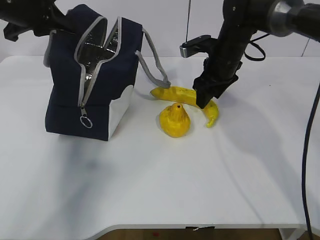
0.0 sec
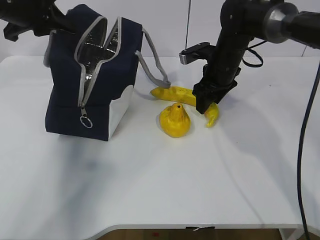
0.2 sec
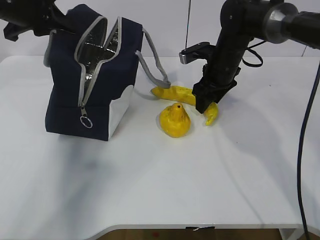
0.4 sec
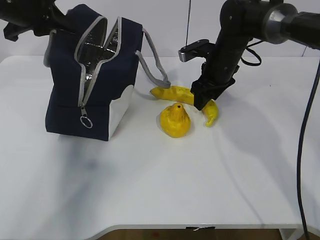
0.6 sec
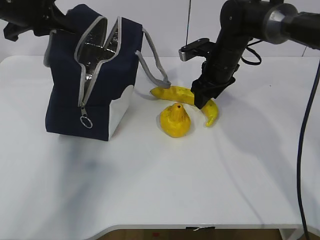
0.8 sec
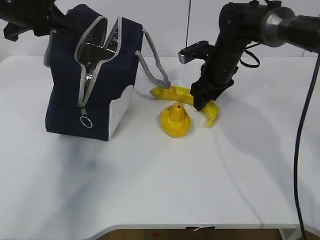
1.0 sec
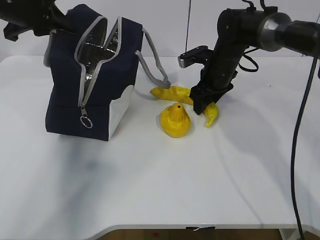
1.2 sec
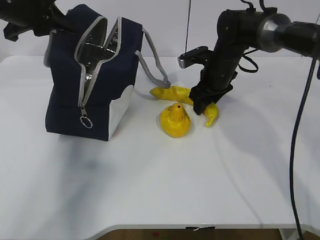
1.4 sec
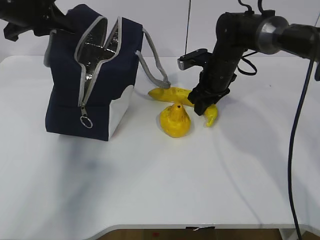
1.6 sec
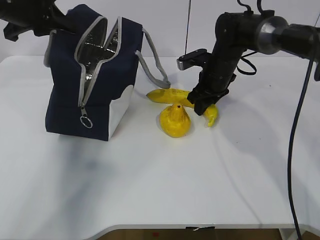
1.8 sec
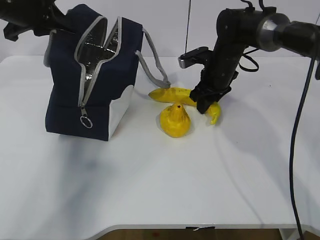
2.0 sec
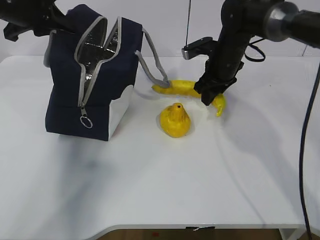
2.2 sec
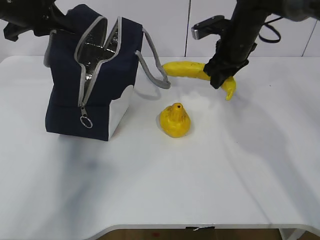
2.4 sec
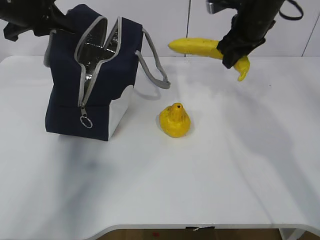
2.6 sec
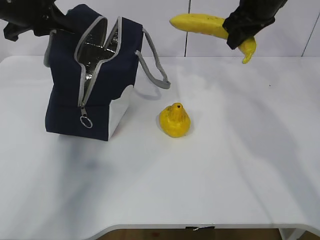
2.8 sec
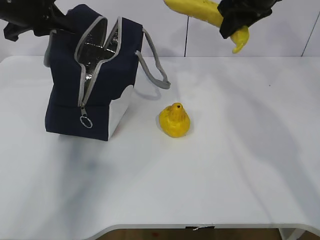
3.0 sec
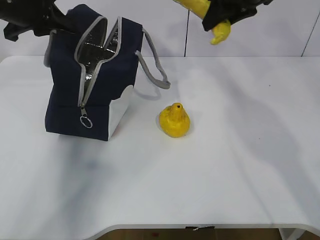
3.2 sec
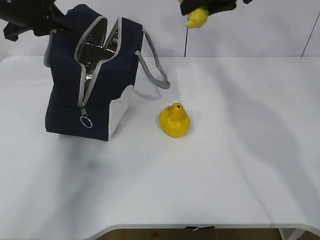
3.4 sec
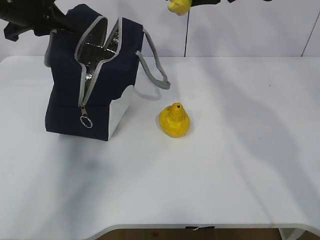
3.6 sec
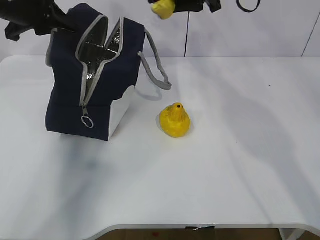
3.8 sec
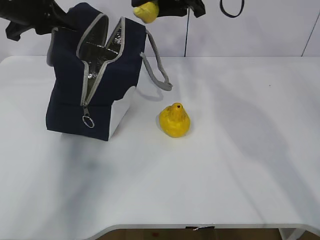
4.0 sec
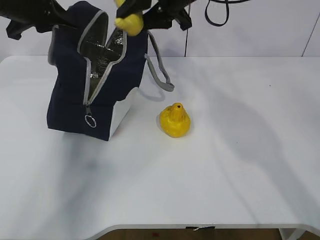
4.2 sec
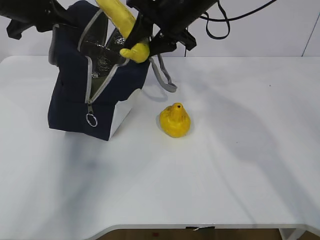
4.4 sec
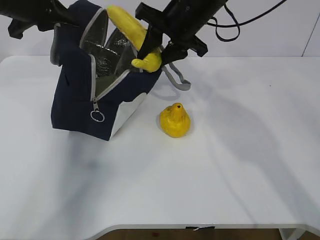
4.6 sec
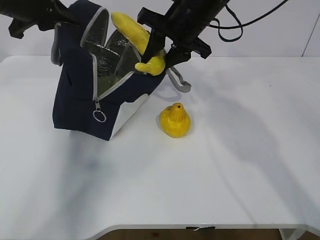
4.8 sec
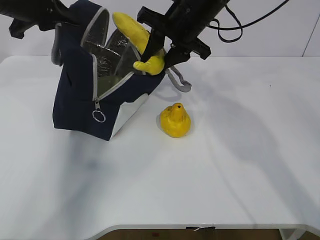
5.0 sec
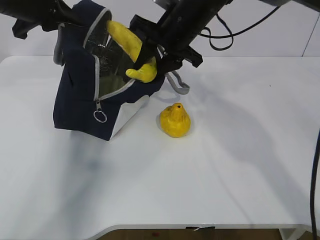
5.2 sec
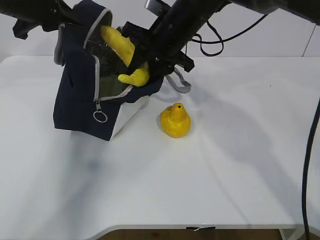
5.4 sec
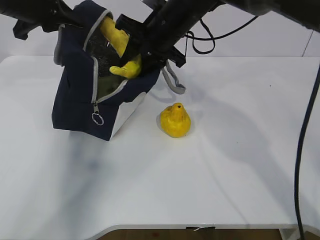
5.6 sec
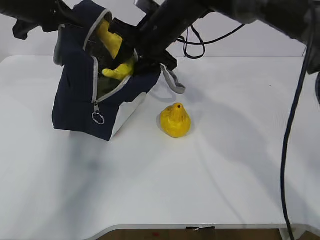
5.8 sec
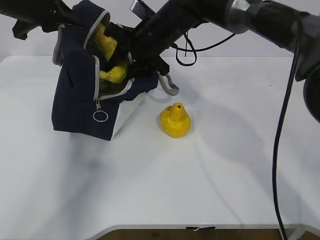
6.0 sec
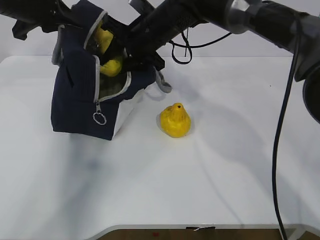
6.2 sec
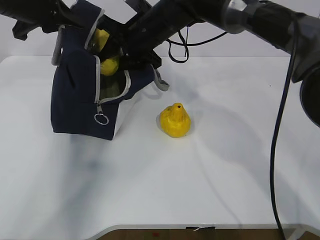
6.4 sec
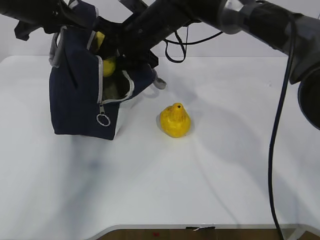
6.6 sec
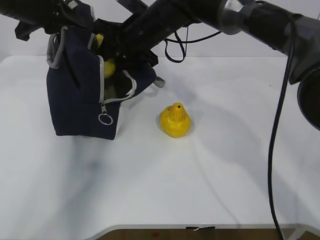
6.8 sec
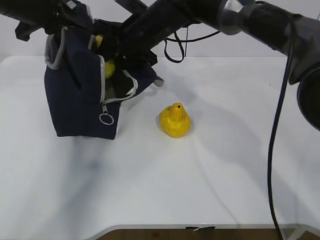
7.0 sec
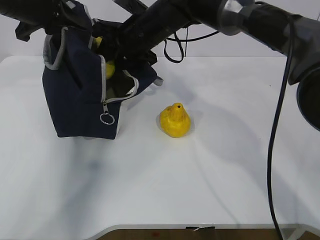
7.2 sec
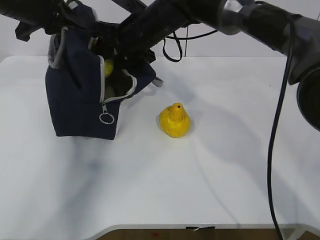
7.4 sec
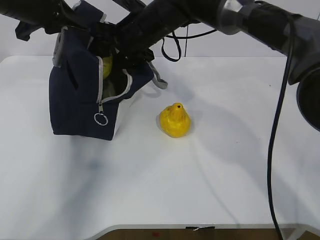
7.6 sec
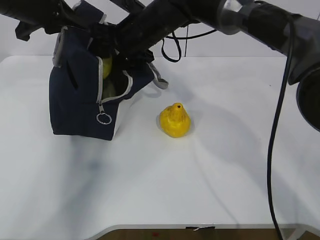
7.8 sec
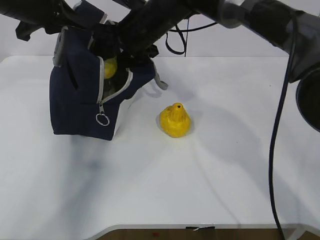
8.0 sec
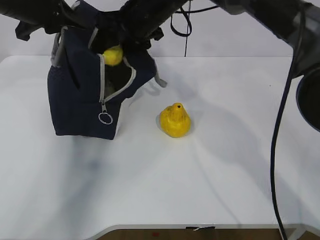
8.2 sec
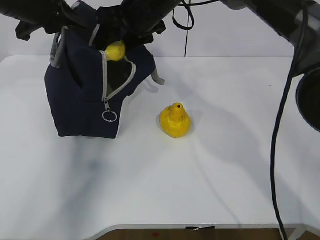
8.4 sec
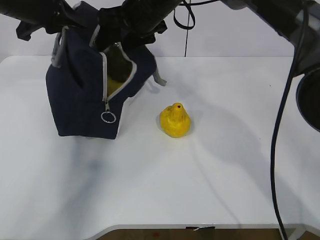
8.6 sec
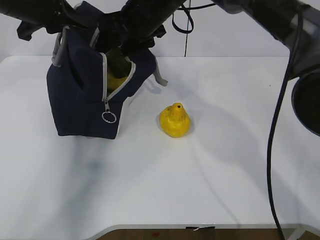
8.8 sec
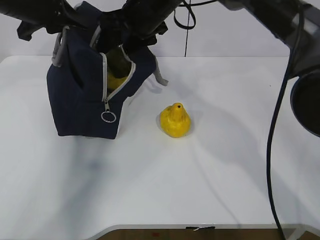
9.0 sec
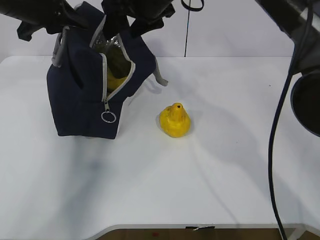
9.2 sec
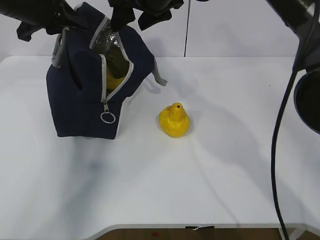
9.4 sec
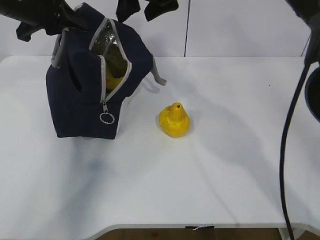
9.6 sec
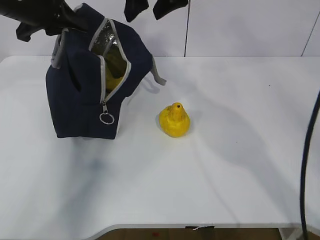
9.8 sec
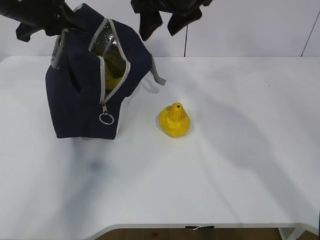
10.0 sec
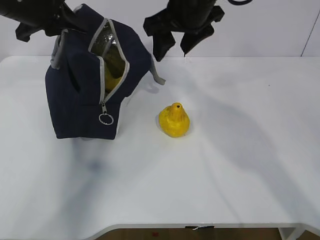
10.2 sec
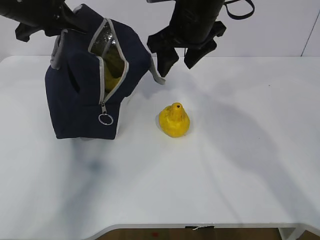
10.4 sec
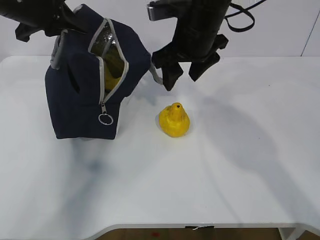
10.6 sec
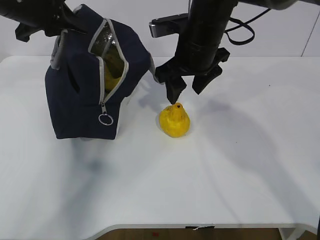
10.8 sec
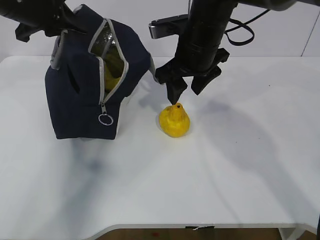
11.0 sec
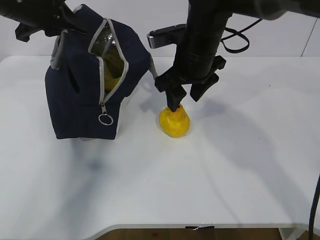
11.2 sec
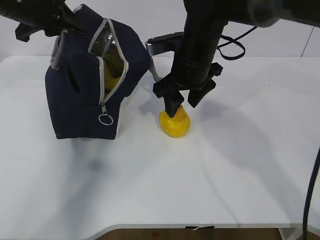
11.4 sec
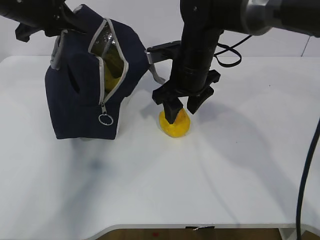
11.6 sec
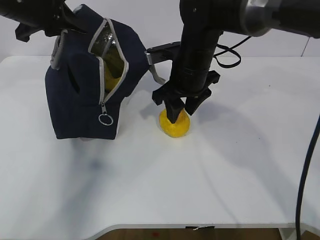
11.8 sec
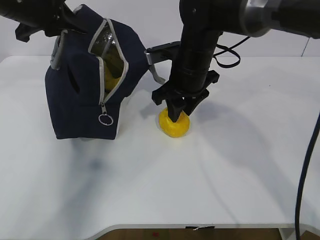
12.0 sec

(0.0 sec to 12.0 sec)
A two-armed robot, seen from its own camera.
Step, 0.0 sec - 3.4 sec: Place it into the bag with your right hand.
Step, 3.6 sec - 7.0 sec: Grab the pear with your right hand.
Step, 10.2 sec - 11.2 sec: Grab the lunch bag with your right hand.
0.0 sec - 1.6 sec: There are only small adjustments of the grippers.
1.6 sec - 3.0 sec: The right gripper is displaced upward by some 20 cm.
3.0 sec - 4.4 sec: The right gripper is displaced to the left by about 15 cm.
4.4 sec - 6.0 sec: The right gripper moves downward, some 5 cm.
7.6 sec - 9.0 sec: The grippers make only small movements.
9.0 sec - 10.4 sec: The right gripper is displaced to the right by approximately 5 cm.
10.4 sec - 12.0 sec: The right gripper travels downward by about 10 cm.

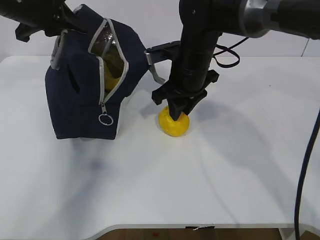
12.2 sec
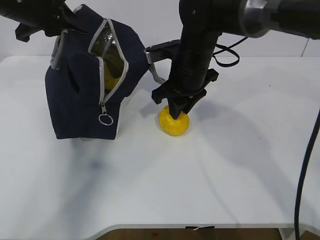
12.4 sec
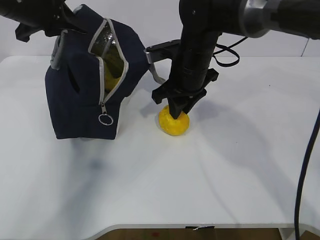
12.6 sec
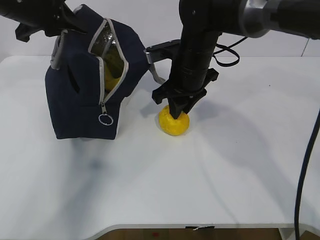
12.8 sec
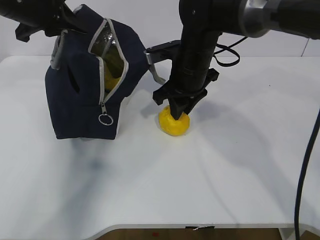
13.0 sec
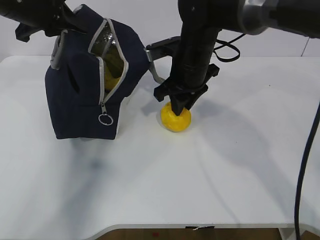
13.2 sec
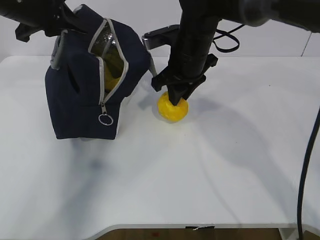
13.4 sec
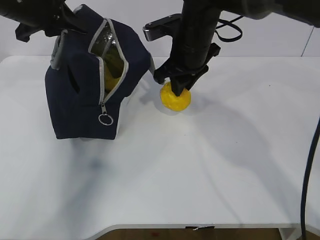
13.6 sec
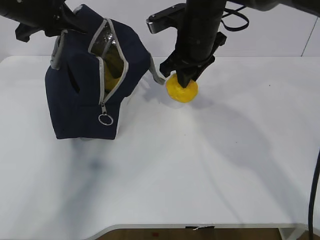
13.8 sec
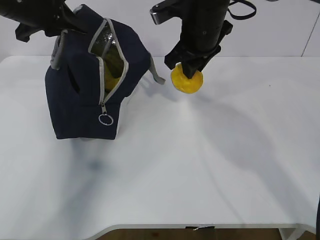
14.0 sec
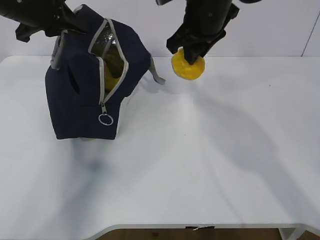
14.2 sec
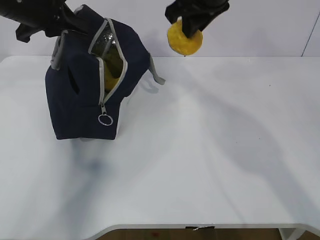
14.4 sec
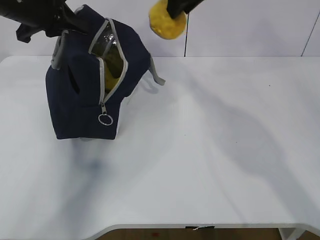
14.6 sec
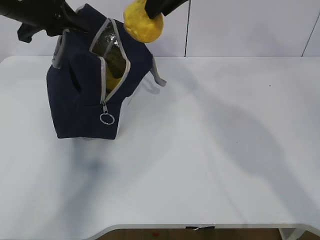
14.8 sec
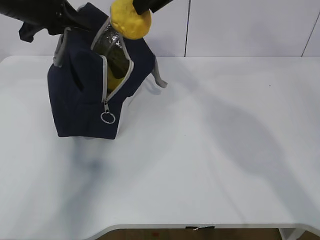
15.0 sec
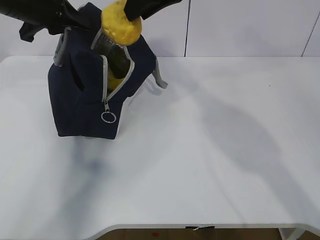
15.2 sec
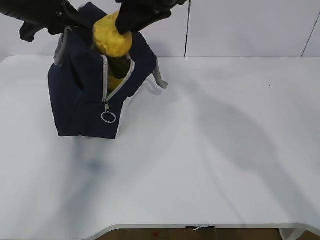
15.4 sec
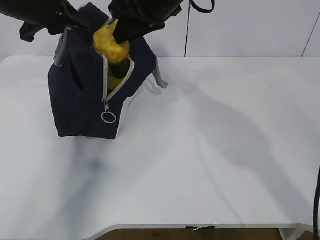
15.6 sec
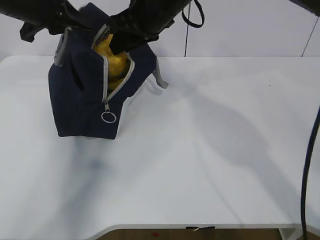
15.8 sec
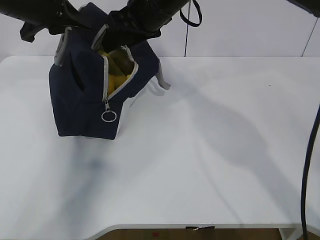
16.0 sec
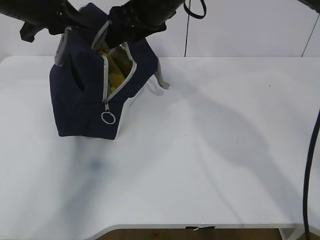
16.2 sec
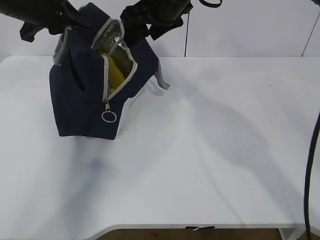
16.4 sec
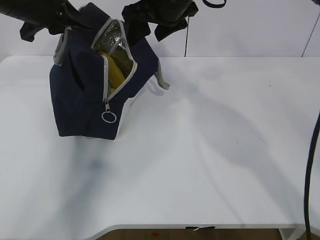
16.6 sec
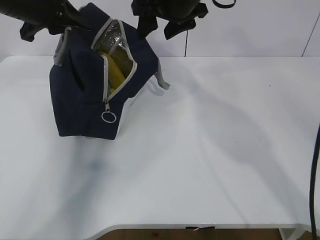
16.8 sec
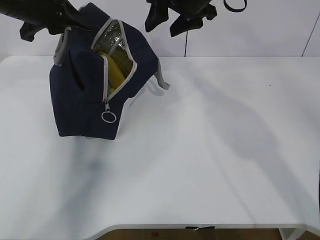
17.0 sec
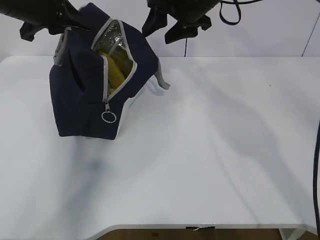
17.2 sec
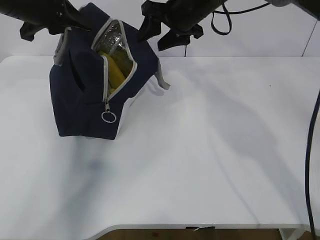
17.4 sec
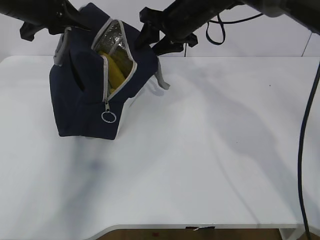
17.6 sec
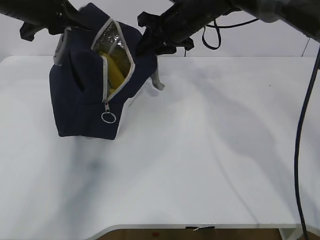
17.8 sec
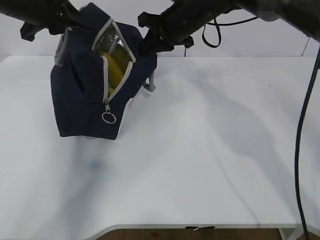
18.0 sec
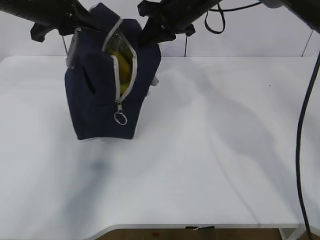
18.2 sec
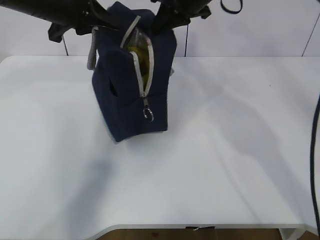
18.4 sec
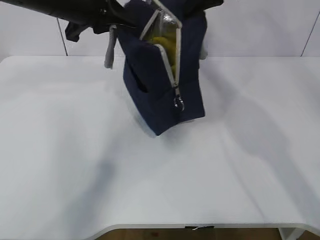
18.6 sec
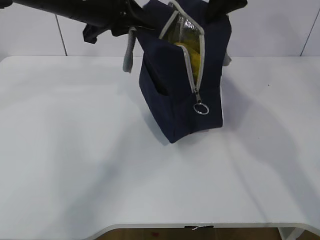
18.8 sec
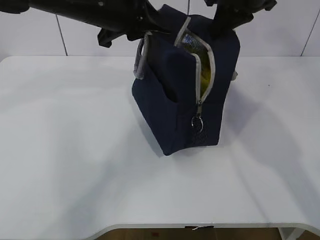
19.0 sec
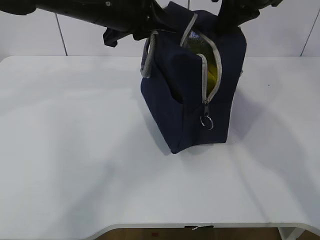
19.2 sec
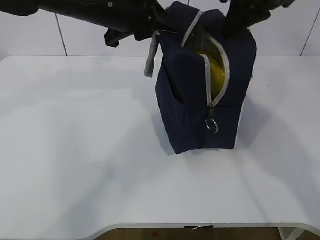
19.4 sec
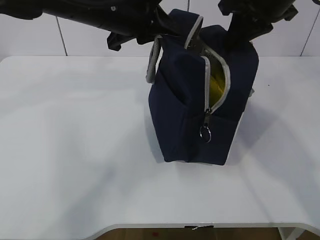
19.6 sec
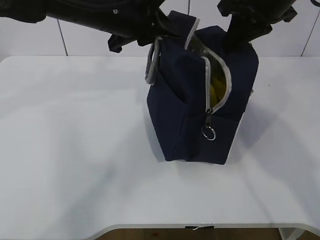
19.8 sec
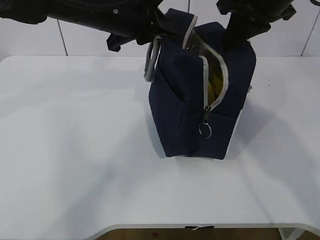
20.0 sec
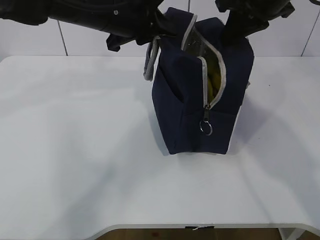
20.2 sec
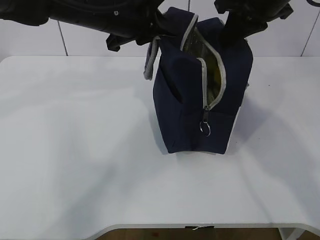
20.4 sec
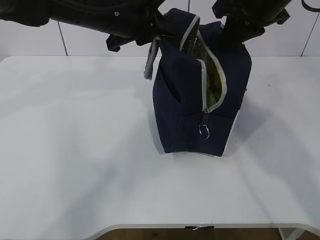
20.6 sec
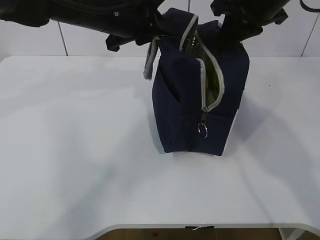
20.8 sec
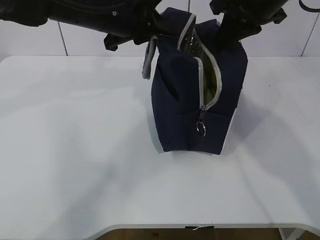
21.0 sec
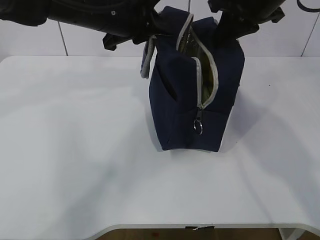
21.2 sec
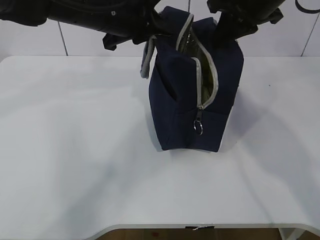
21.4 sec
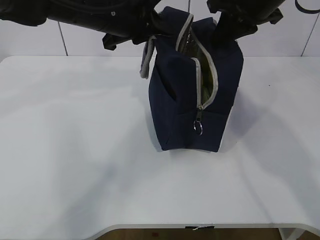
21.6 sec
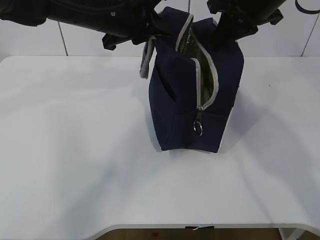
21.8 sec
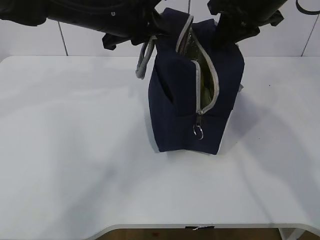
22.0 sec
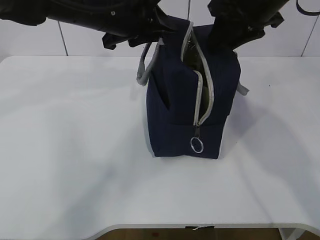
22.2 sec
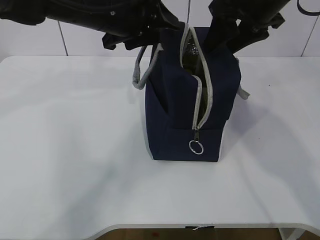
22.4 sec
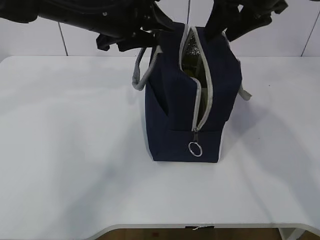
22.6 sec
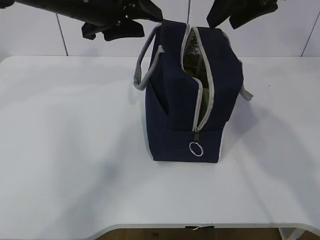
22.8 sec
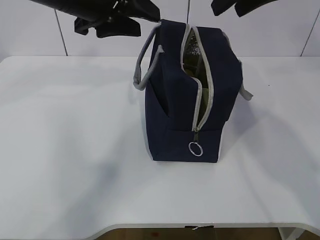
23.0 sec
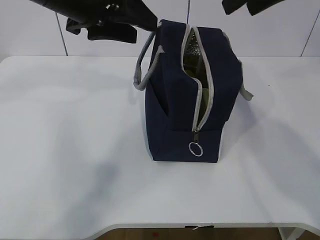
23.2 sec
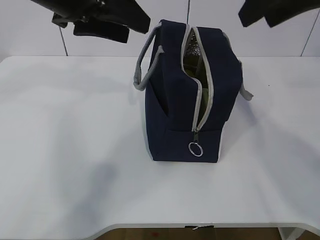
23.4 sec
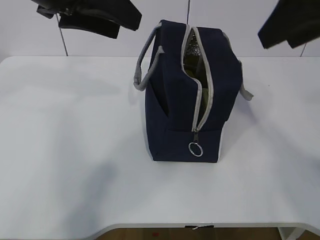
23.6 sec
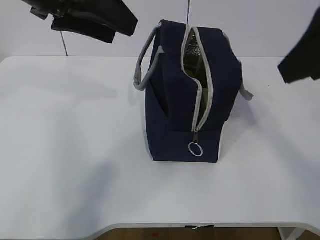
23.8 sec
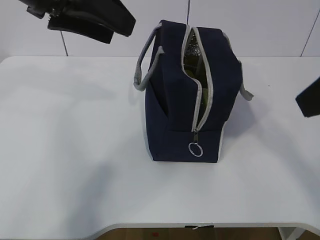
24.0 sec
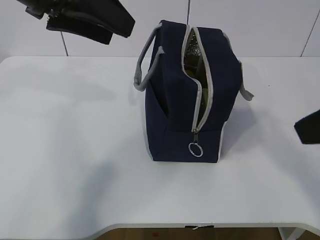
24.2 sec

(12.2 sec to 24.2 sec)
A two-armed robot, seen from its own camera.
Step, 12.2 sec - 15.0 sec: Move the lunch bag to the right.
12.2 sec - 13.8 sec: The right gripper shifts by roughly 5 cm.
13.8 sec - 15.2 sec: The right gripper moves upward, about 10 cm.
15.2 sec - 16.6 sec: The right gripper is displaced downward and forward by approximately 10 cm, and opens.
16.6 sec - 18.2 sec: The right gripper ends up some 5 cm from where it was, and closes.
18.2 sec - 19.8 sec: The left gripper shifts about 15 cm to the right; the right gripper travels backward, to the right and upward by approximately 15 cm.
19.8 sec - 21.2 sec: The grippers move only a little.
21.2 sec - 22.6 sec: The right gripper opens up; the left gripper opens its fingers.
22.6 sec - 24.2 sec: The left gripper moves backward, upward and to the left, about 15 cm, while the right gripper shifts approximately 25 cm backward.
